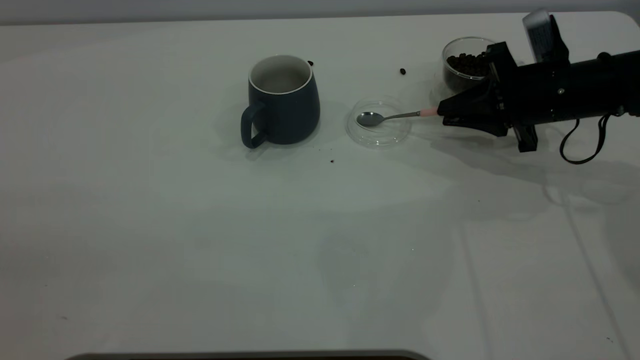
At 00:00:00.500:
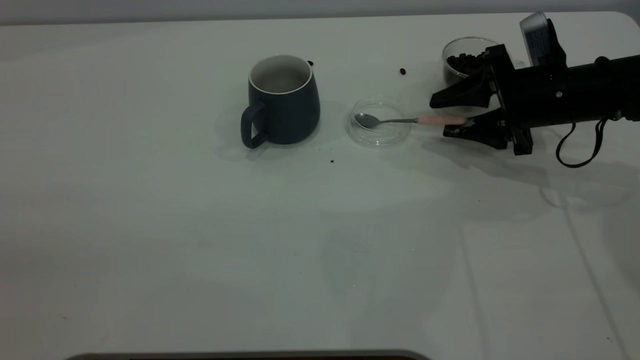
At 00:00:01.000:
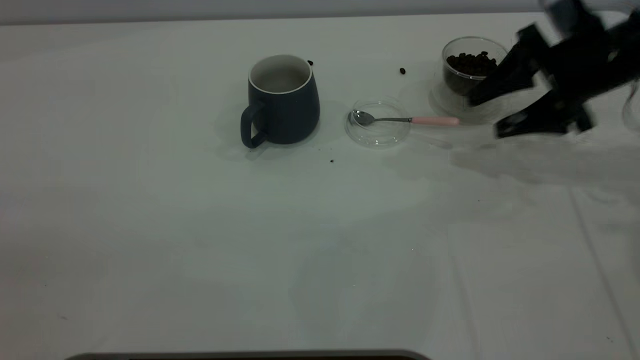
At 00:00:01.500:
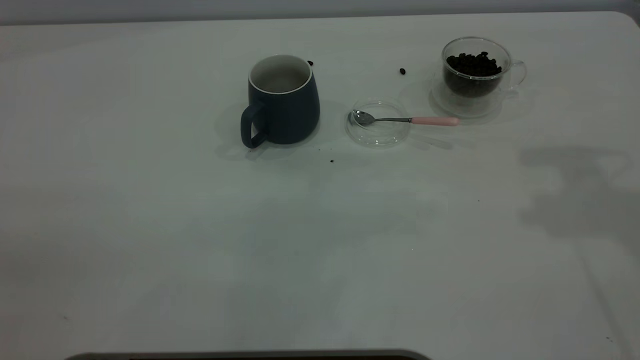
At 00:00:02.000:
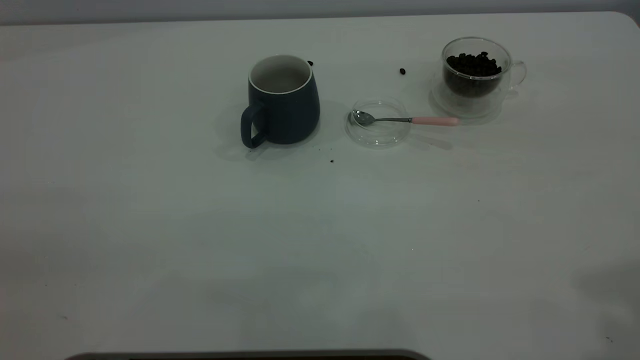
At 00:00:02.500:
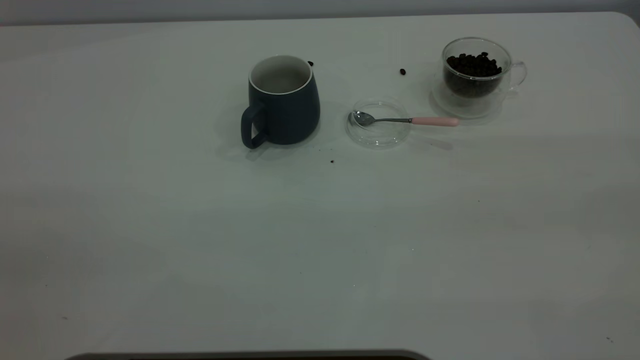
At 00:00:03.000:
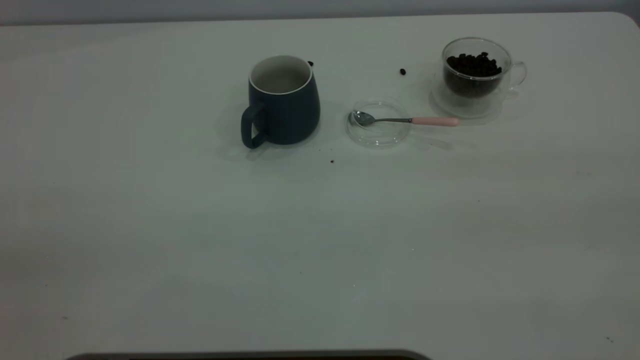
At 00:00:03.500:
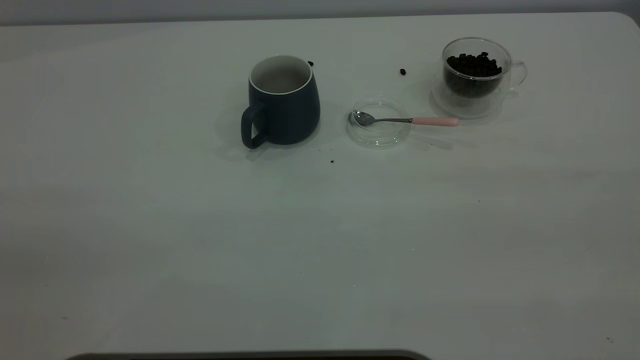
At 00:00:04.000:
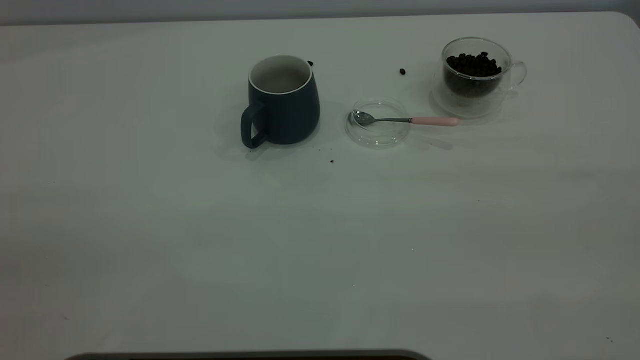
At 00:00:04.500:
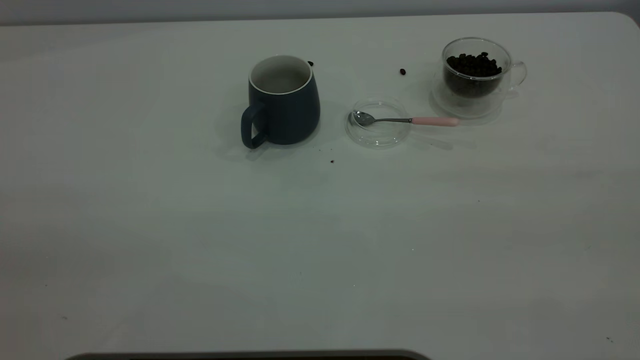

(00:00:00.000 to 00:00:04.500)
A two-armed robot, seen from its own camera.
Task of the whole recording: the left gripper place the grey cup in the center of the table, the right gripper take the pink spoon from the cup lid and scoop out the coffee beans from the coffee cup and put them into the grey cup, the right gripper put the spoon back into the cup lid.
00:00:00.000 - 00:00:02.000: The right gripper moves upward and backward, approximately 40 cm, and opens.
